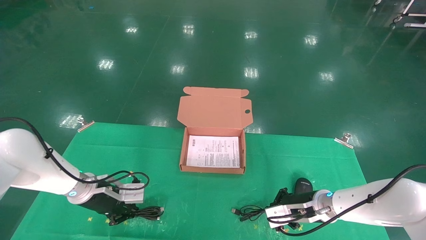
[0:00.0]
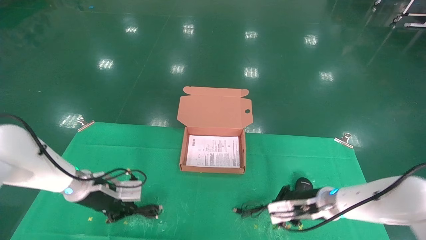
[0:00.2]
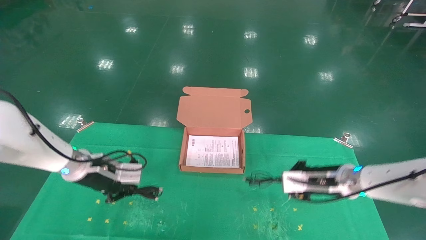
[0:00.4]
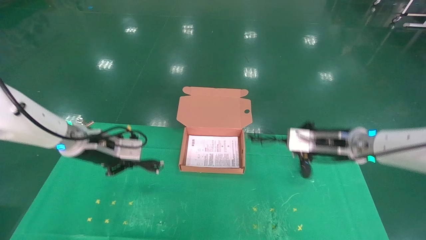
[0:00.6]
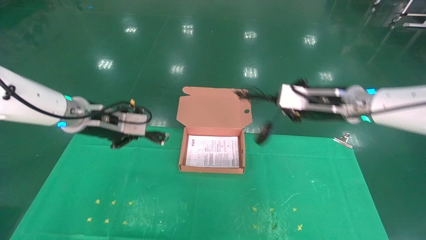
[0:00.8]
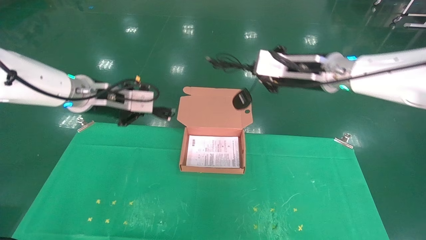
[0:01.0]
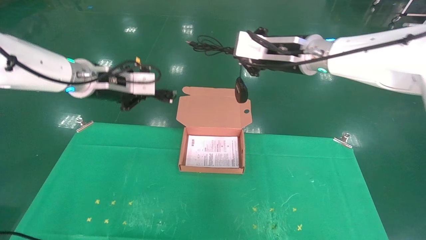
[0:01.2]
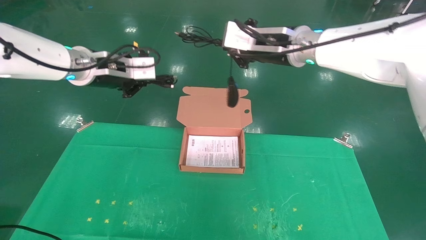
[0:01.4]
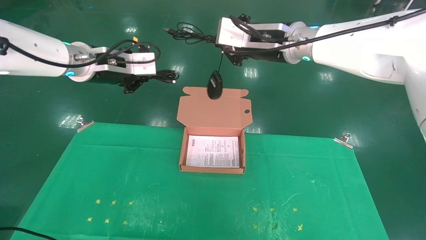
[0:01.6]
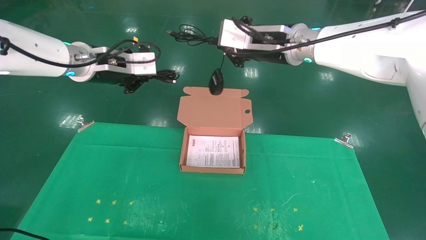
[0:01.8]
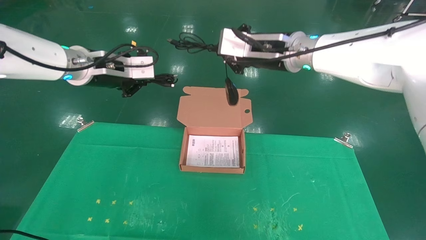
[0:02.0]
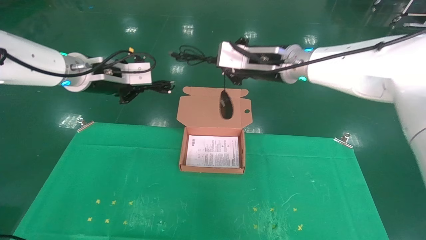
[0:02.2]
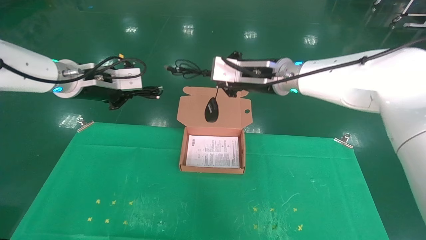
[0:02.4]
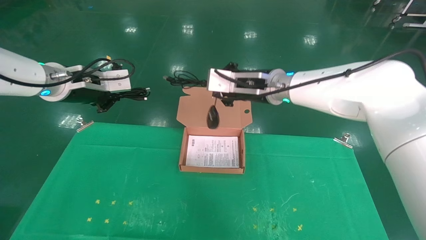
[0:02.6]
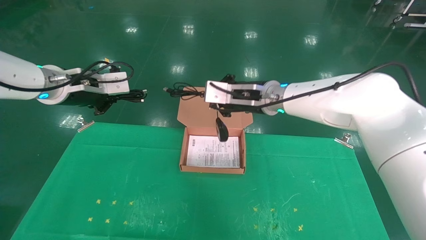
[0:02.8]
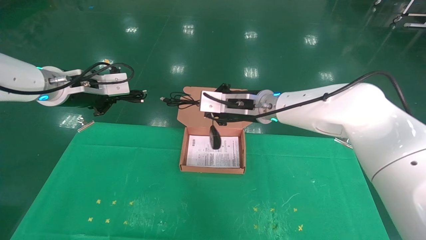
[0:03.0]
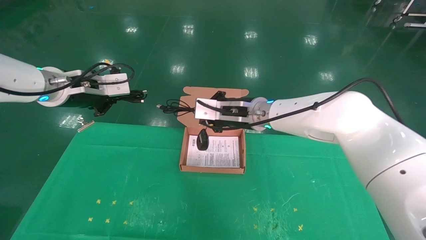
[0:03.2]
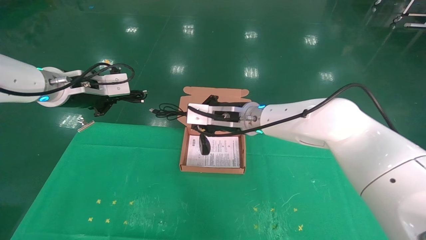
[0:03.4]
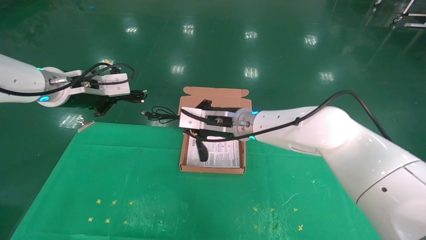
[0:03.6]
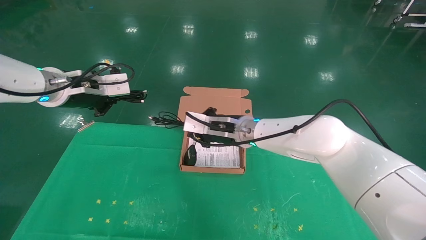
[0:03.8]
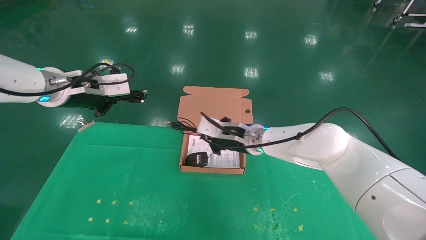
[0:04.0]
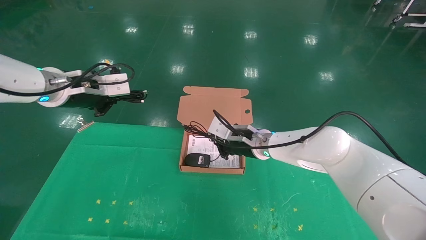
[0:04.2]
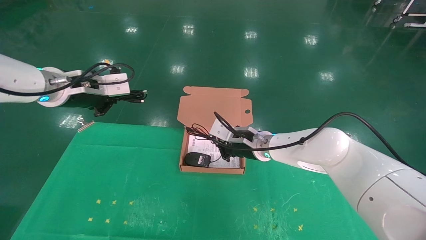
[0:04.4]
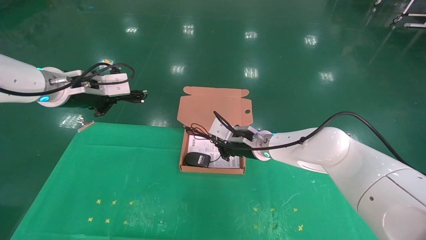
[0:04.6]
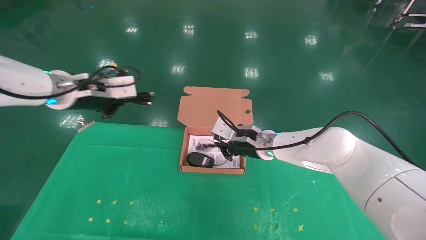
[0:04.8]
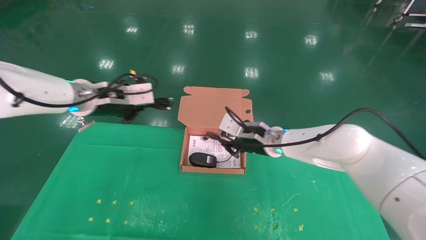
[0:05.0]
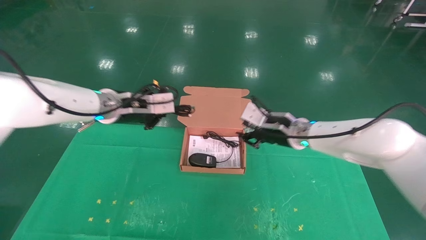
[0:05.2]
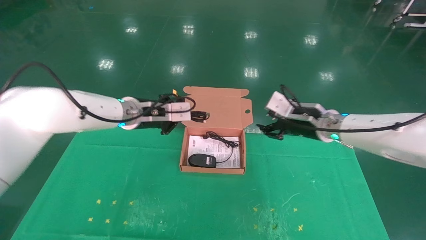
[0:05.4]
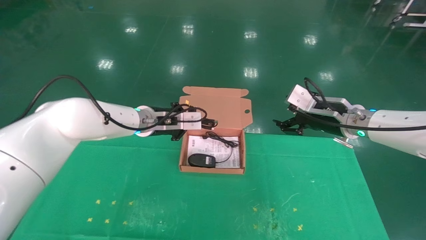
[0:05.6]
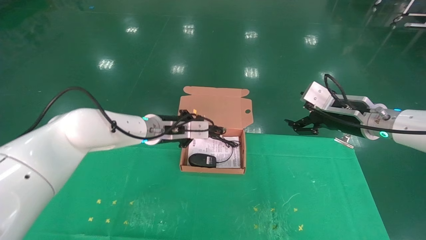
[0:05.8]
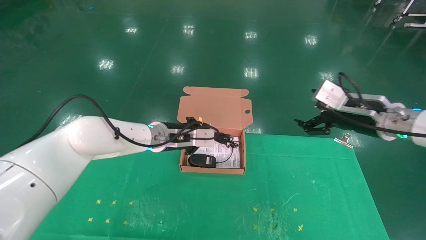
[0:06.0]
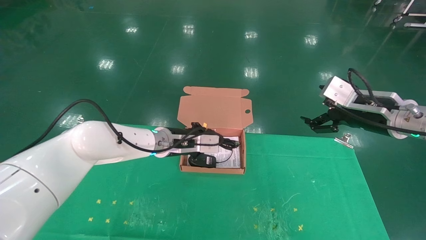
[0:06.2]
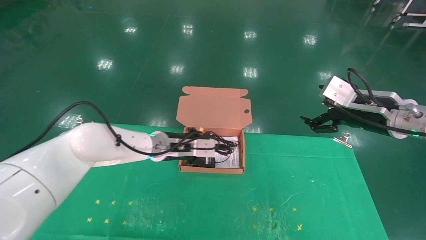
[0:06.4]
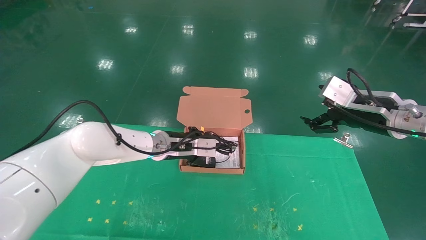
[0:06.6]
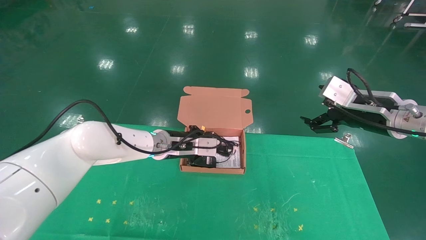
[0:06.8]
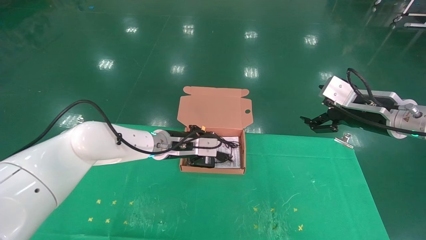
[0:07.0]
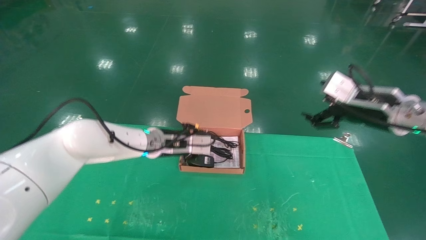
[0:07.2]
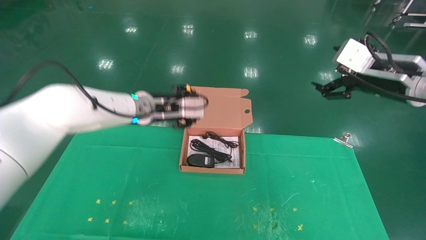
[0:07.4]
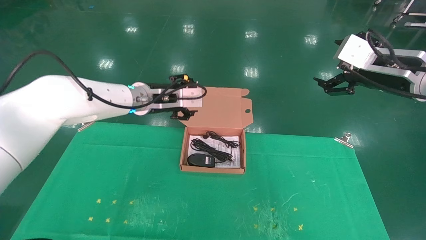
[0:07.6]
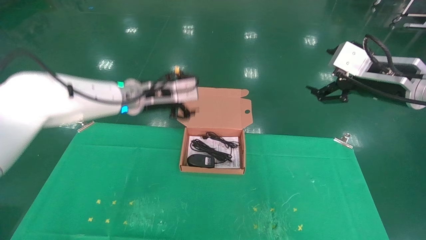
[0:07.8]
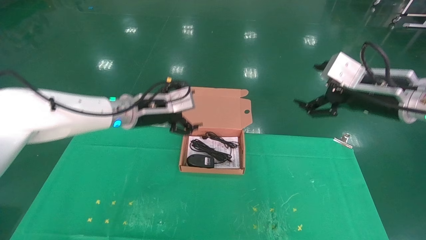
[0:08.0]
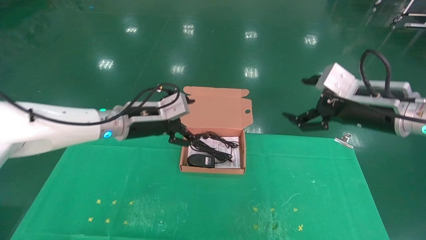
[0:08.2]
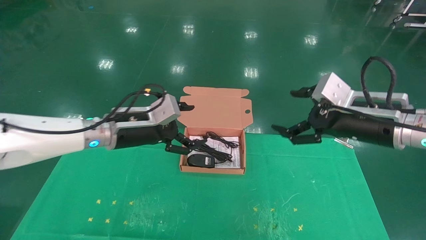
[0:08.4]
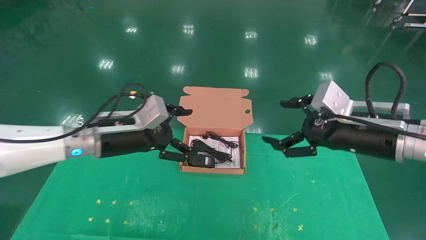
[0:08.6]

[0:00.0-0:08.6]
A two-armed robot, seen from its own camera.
Task of the whole recording: grasp data cable left put into box grasp mouse right put into box.
Step, 0:00.0 to 0:07.0: Place the mouse and power cord into the box.
0:00.0 to 0:01.4: Both grippers travel together upward, approximately 30 cm.
0:01.4 to 0:02.8: The left gripper moves approximately 5 cm; the right gripper goes approximately 10 cm downward.
0:02.8 to 0:04.4: The right gripper travels downward by approximately 10 cm.
0:04.4 to 0:05.8: The left gripper travels to the right, downward and forward by some 20 cm. Meanwhile the right gripper is displaced to the right and upward by roughly 20 cm, and opens.
0:05.8 to 0:07.2: The right gripper shifts by approximately 5 cm.
0:07.2 to 0:08.6: The left gripper heads backward and to the left, covering some 10 cm, and opens its fingers. The right gripper is displaced backward and to the left by about 10 cm.
